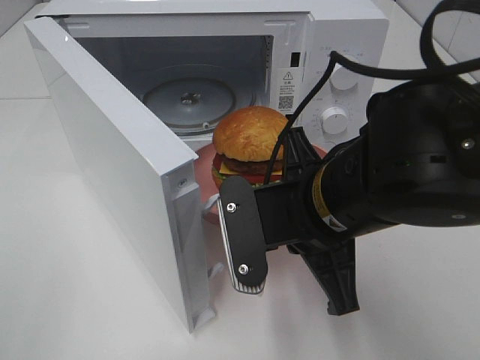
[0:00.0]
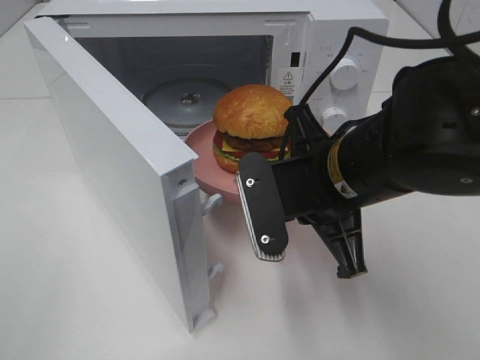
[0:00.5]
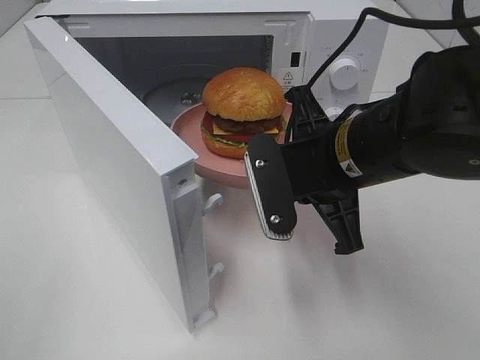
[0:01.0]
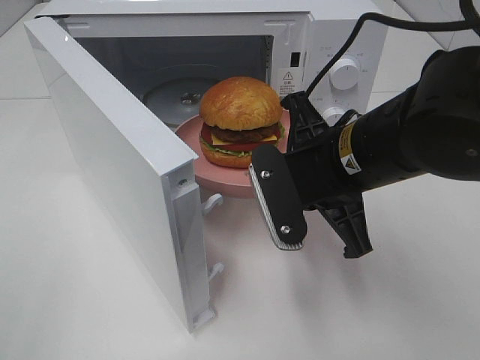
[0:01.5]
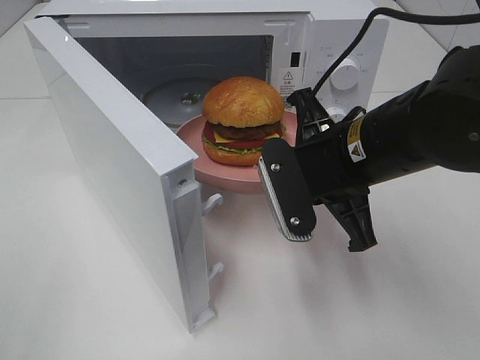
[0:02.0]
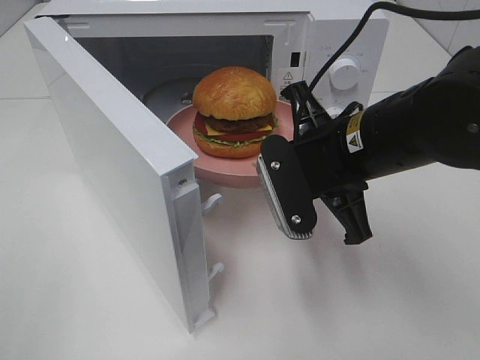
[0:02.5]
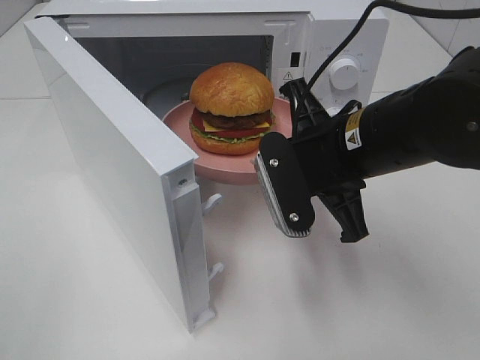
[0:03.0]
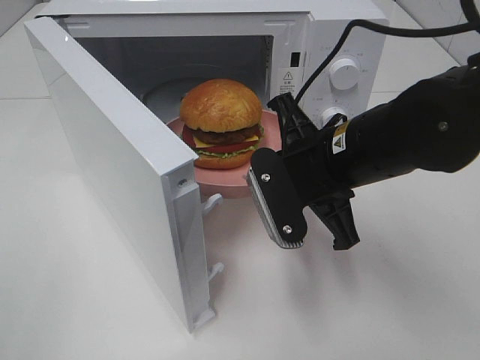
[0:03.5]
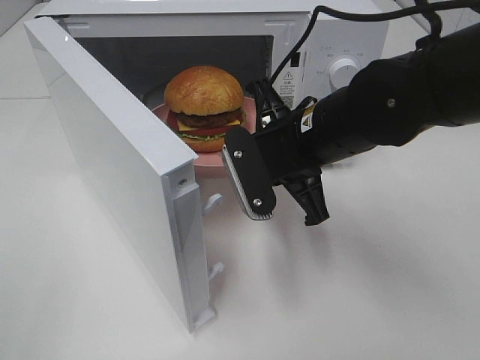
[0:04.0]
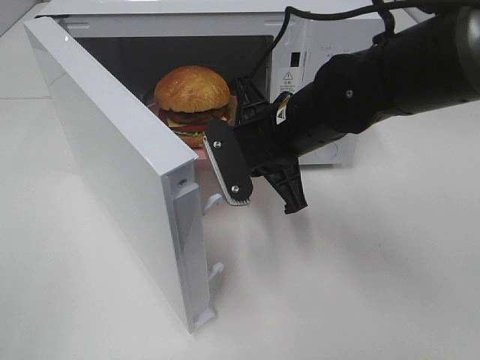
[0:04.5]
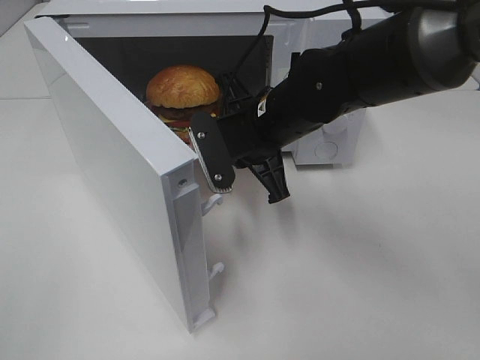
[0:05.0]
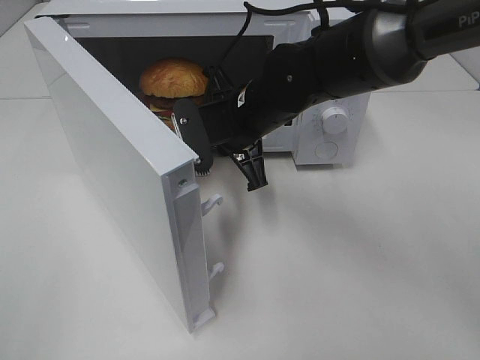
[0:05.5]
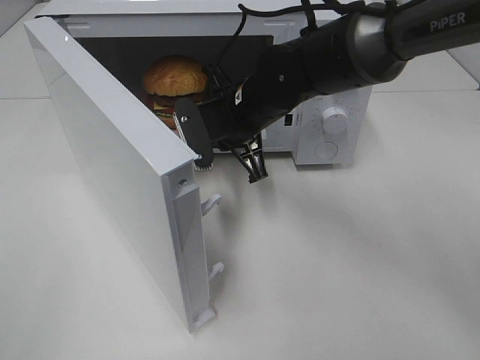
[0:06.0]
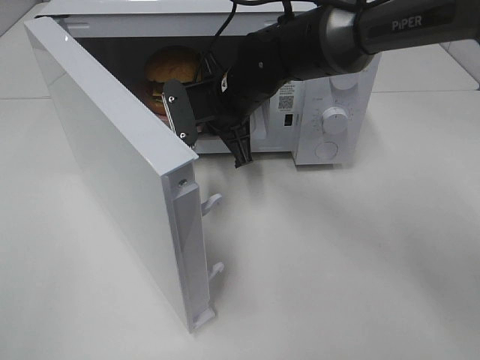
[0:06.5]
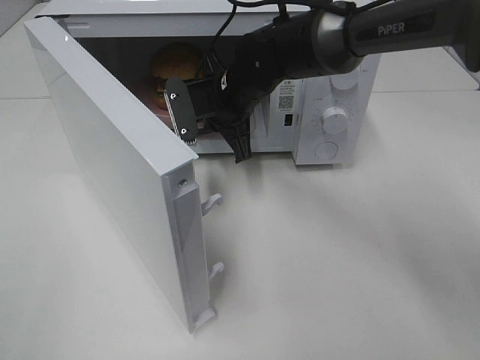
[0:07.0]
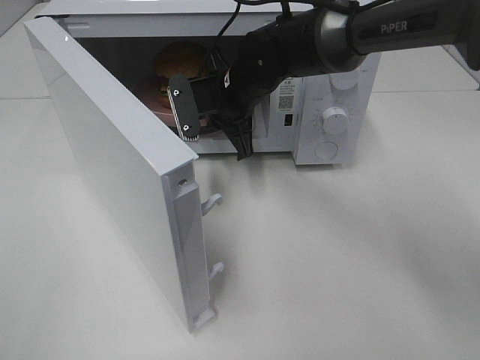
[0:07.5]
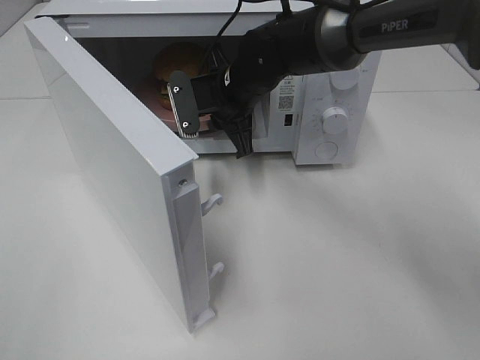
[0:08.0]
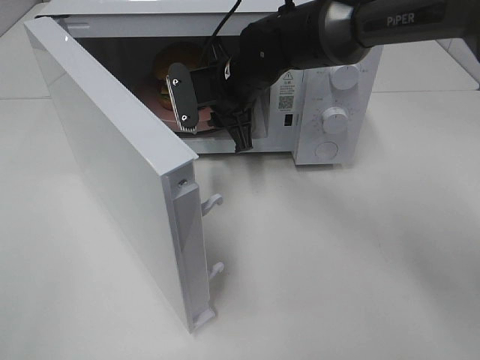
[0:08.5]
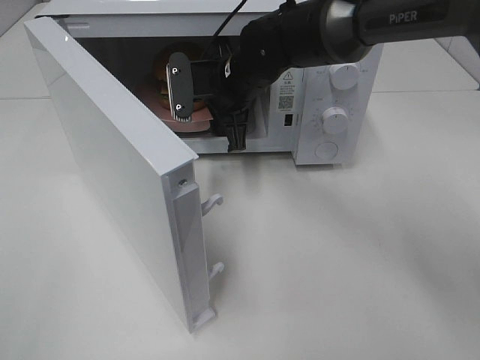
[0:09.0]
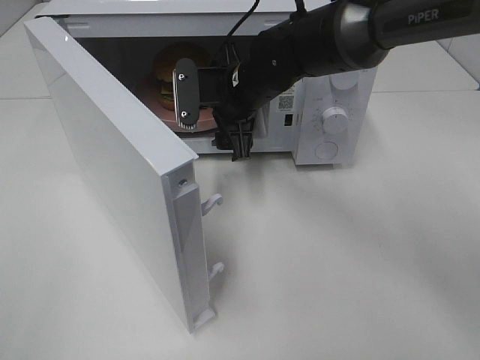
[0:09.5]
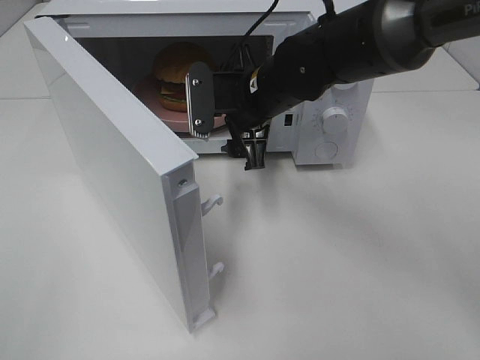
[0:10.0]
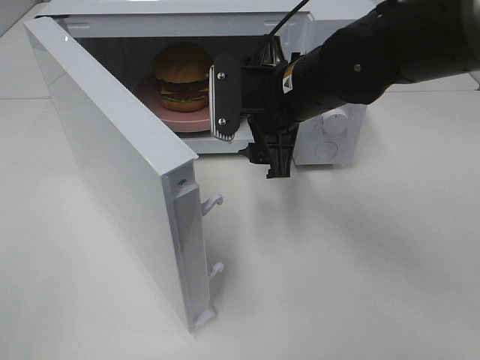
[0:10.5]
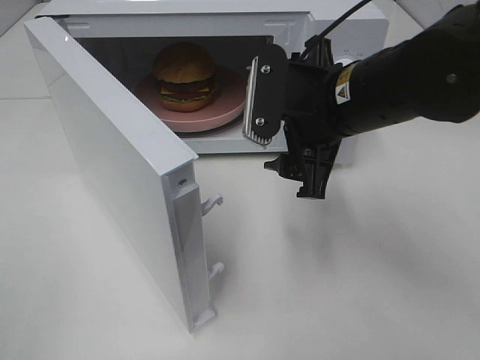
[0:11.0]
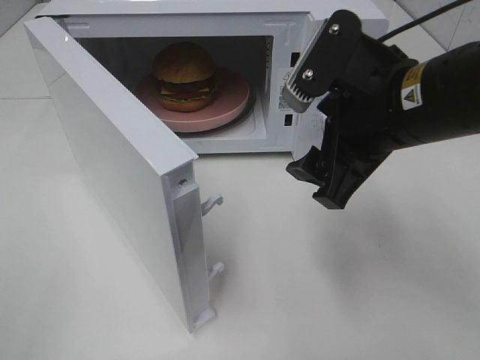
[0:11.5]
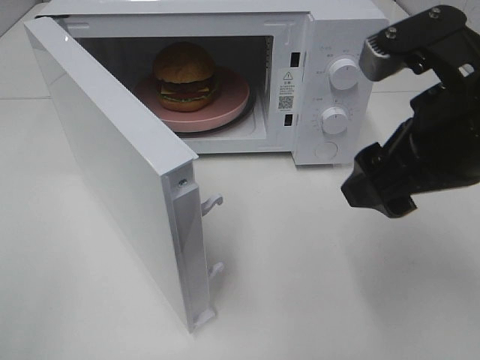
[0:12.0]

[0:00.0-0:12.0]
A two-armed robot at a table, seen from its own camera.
Task of the whole recording: Heat the burger.
Step, 0:00.0 to 0:07.5: Right hand: place the plate in the microwave.
0:00.0 to 0:02.0: The right gripper moves forward, some 5 cm.
0:02.0 to 0:04.0: The right gripper moves about 5 cm.
0:04.0 to 0:06.0: The right gripper shifts some 10 cm forward and to the left.
0:06.0 to 0:08.0: There are only small adjustments of the grippers.
0:08.0 to 0:10.0: The right gripper changes place by about 5 cm, and opens.
0:10.0 to 0:12.0: The right gripper moves backward, to the right and upward, approximately 25 cm.

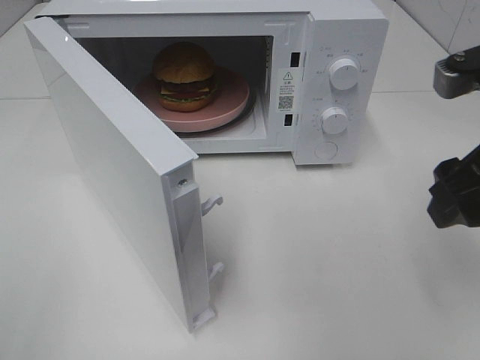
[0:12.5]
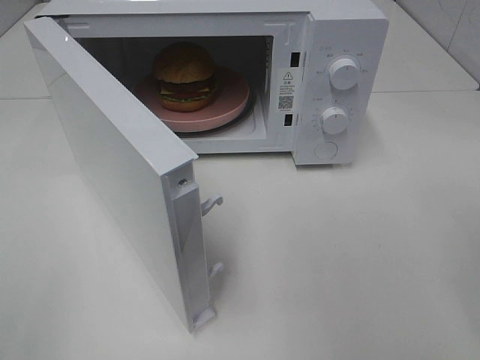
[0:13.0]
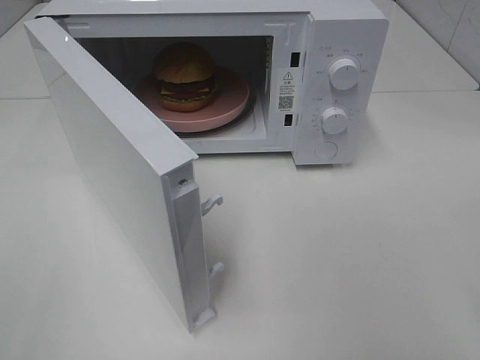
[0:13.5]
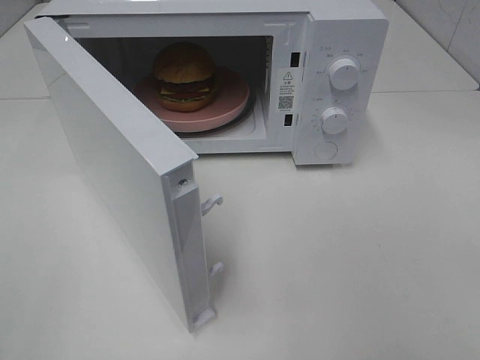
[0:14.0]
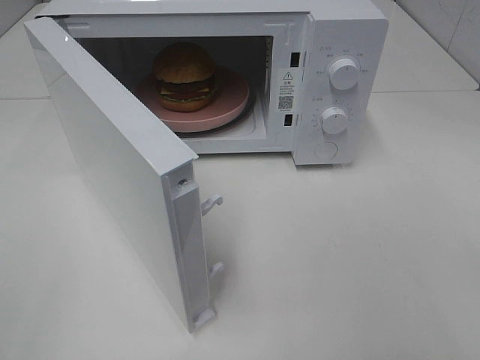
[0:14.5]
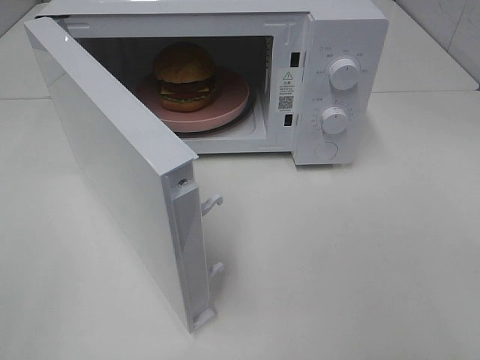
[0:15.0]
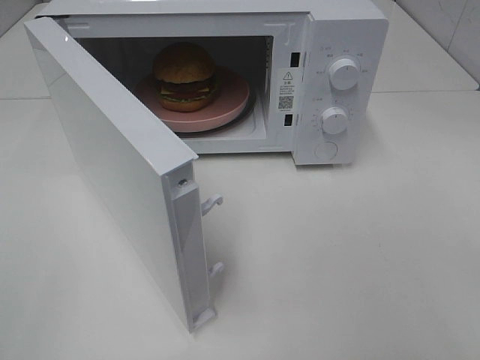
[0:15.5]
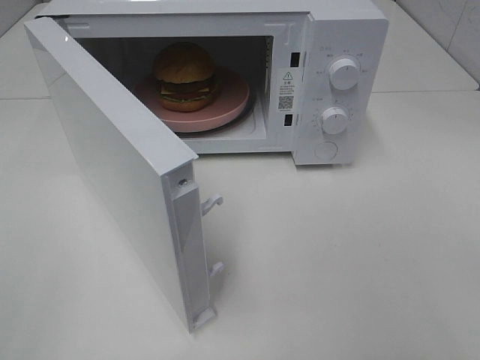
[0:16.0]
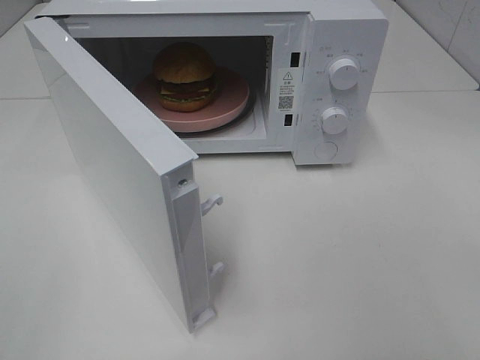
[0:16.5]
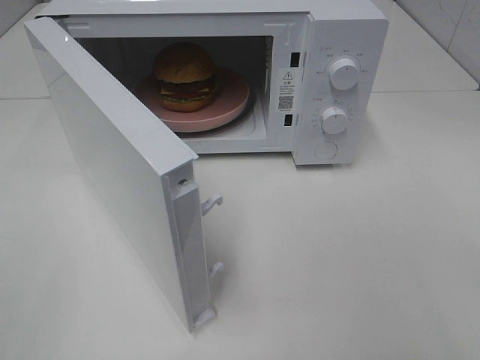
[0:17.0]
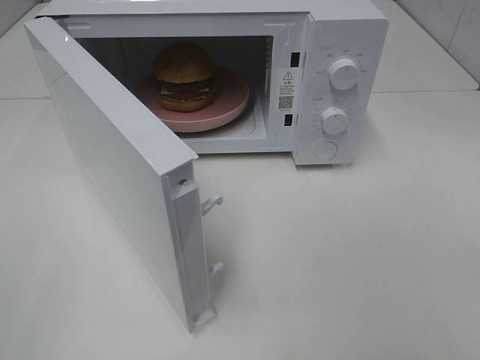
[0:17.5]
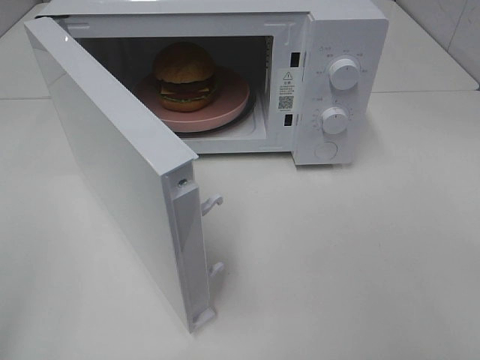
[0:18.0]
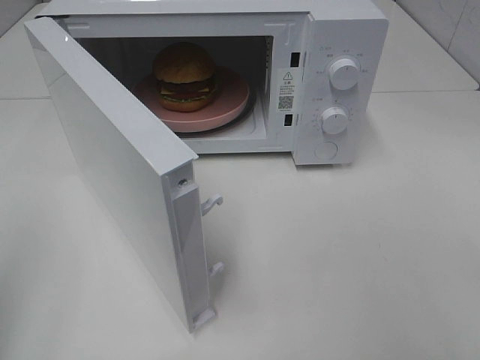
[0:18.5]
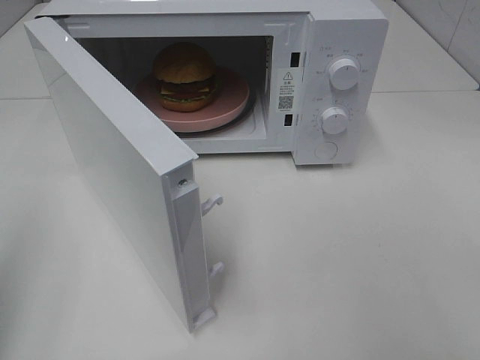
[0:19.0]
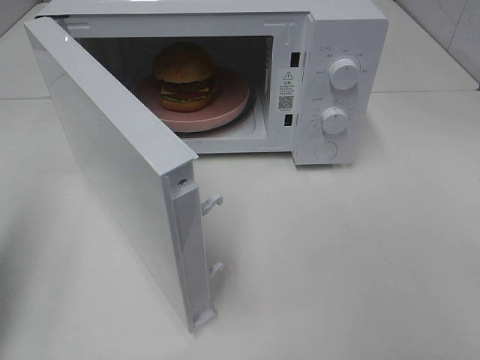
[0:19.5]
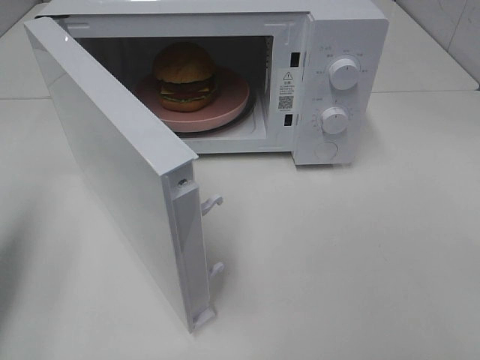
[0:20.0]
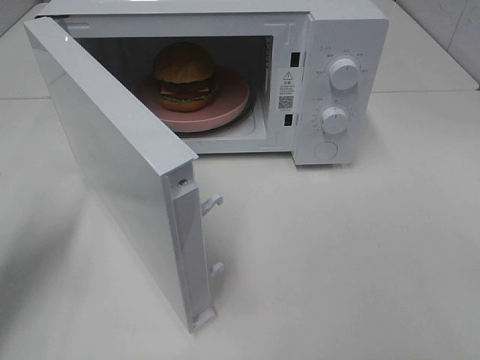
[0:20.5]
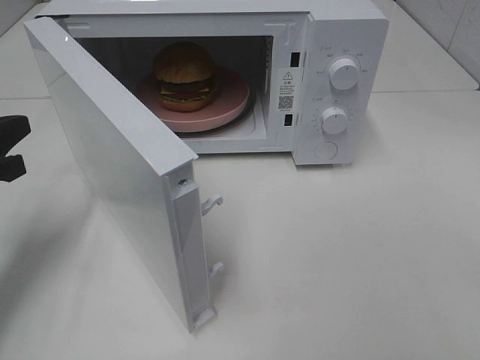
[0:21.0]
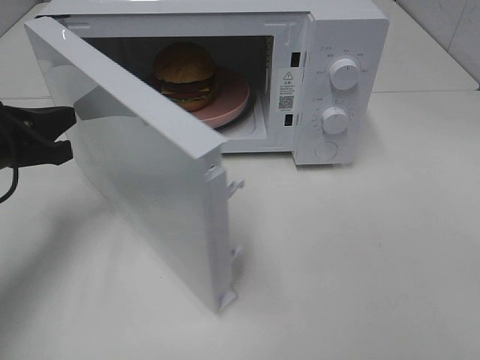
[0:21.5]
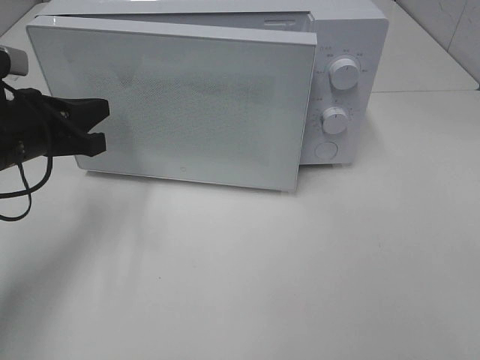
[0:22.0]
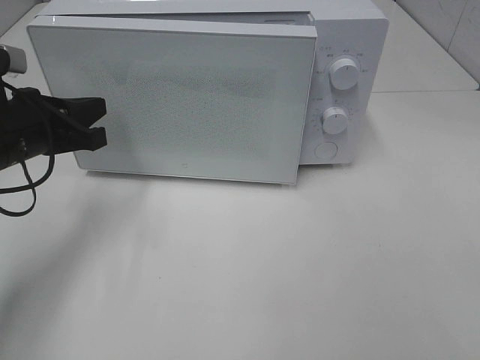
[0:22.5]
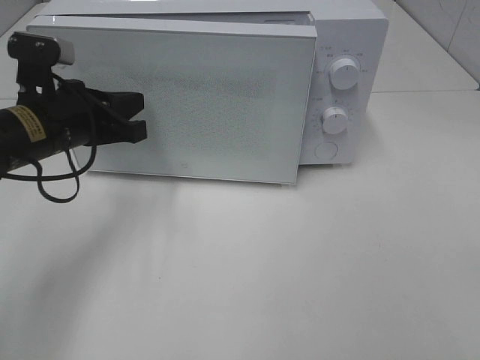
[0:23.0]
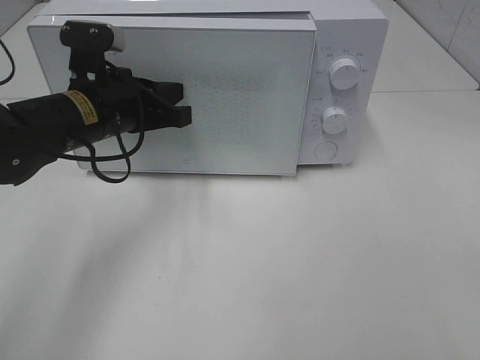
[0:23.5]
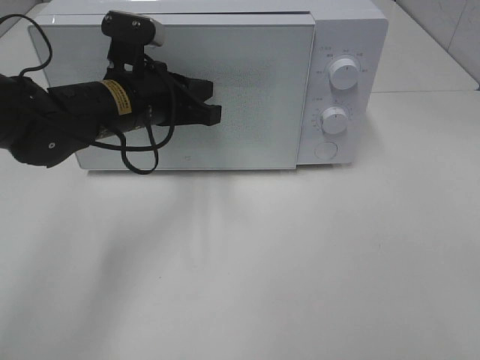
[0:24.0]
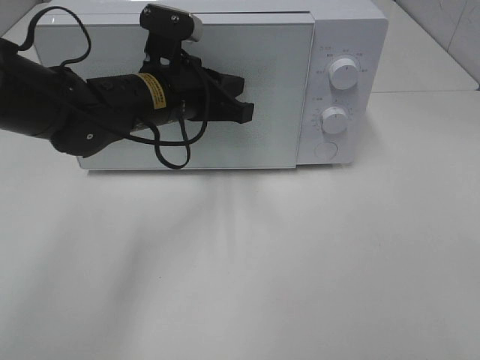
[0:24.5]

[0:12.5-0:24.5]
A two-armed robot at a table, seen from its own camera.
Task of the whole recording: Heat the burger.
0:12.5 to 0:14.5: The right gripper heads backward, covering about 20 cm.
0:14.5 to 0:16.5: Both grippers stay about where they are.
0:18.5 to 0:20.5: The left gripper moves forward and downward, some 20 cm.
0:20.5 to 0:22.5: The left gripper is displaced forward and to the right by some 10 cm.
0:22.5 to 0:24.5: The left gripper heads to the right, covering approximately 15 cm.

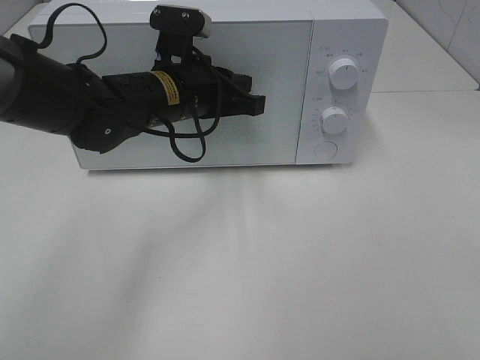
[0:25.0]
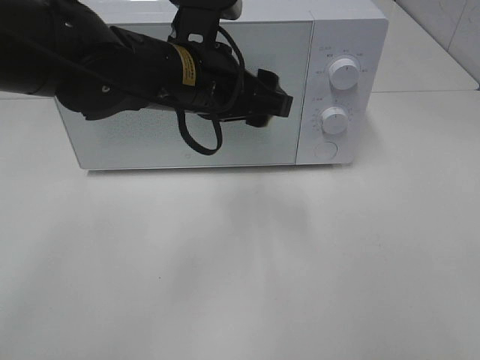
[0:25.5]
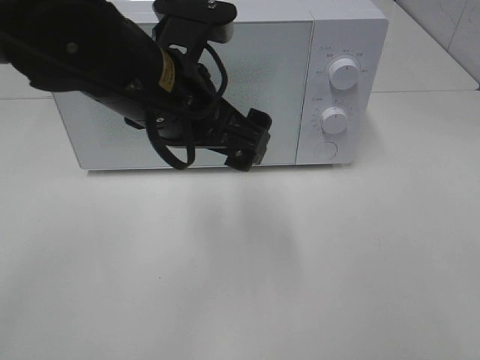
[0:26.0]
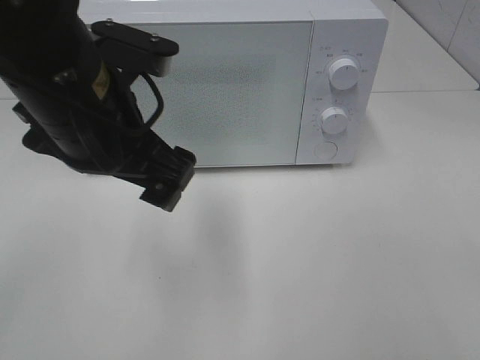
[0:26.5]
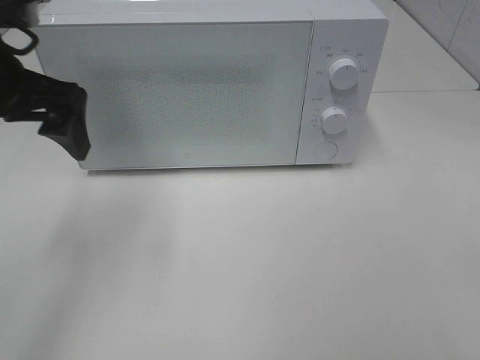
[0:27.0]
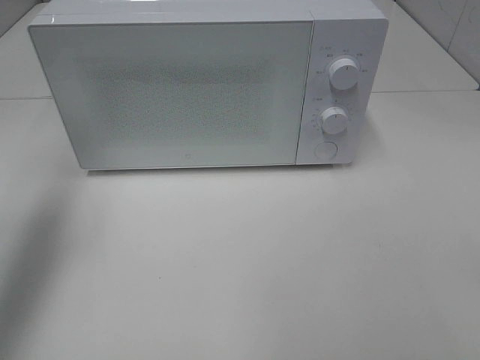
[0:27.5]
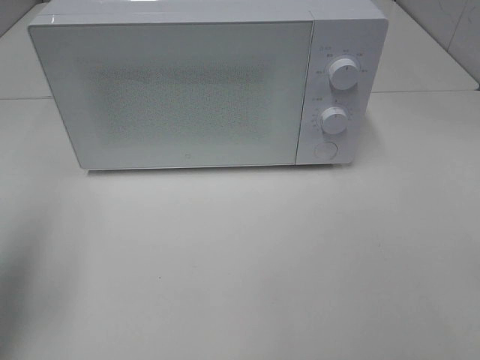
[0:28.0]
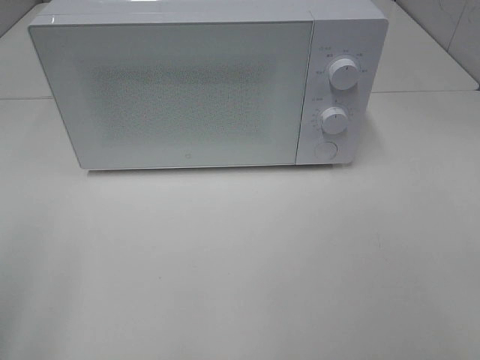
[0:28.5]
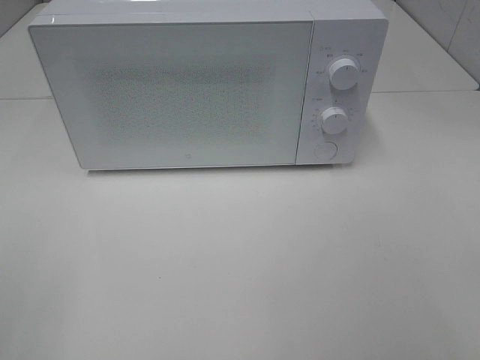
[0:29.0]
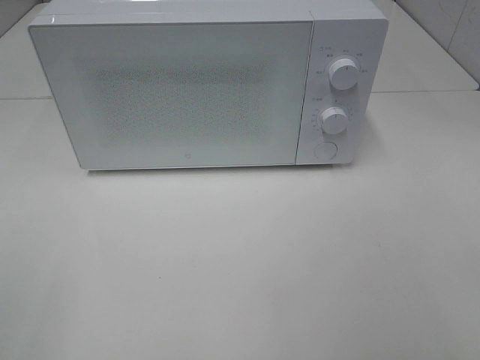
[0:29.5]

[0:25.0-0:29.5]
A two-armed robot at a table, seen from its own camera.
Task of the whole recording: Heat the burger.
0:25.0 to 0:27.0: The left gripper shifts about 20 cm to the left, upward and backward, and opens its fingers.
0:27.0 to 0:29.5: The left gripper moves backward, about 30 cm.
